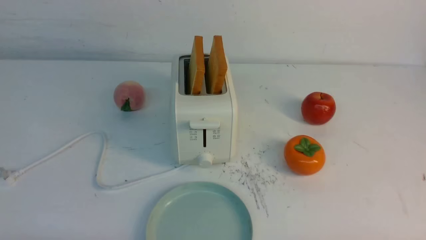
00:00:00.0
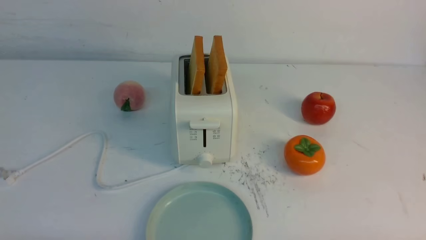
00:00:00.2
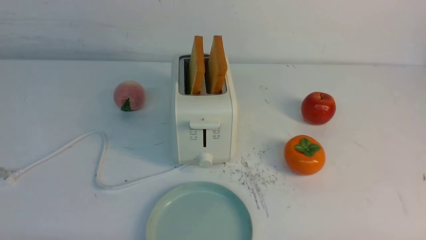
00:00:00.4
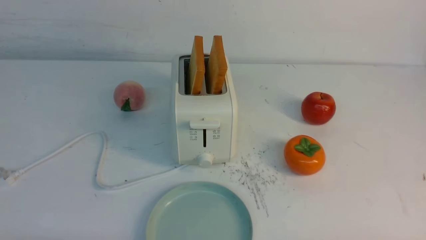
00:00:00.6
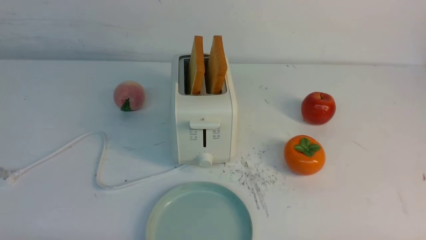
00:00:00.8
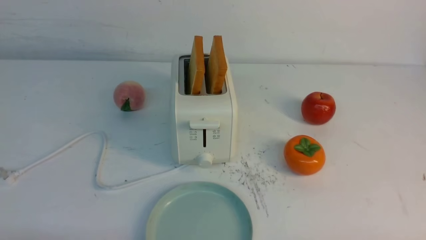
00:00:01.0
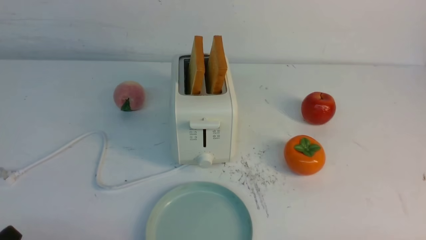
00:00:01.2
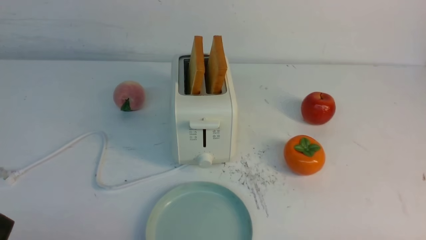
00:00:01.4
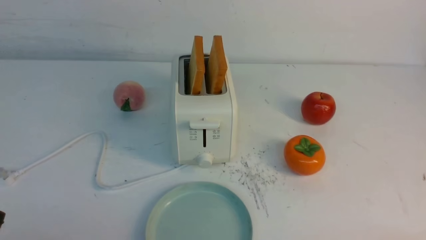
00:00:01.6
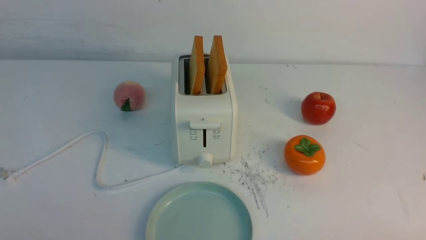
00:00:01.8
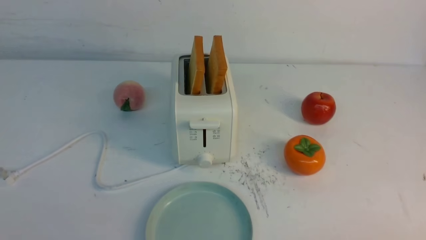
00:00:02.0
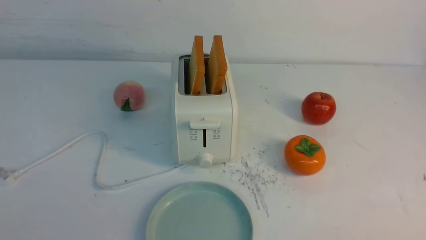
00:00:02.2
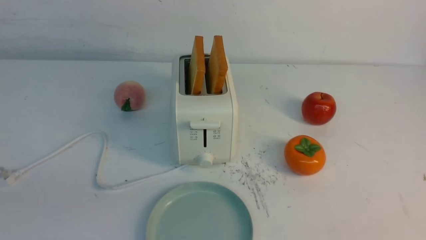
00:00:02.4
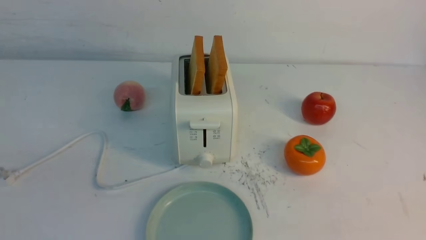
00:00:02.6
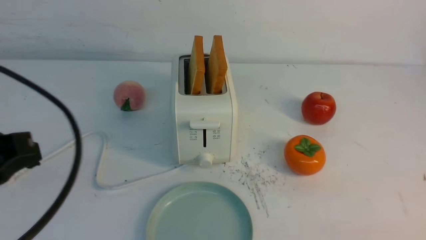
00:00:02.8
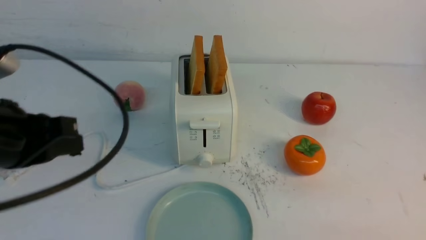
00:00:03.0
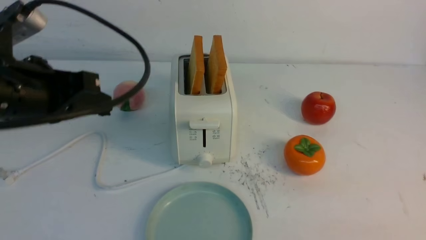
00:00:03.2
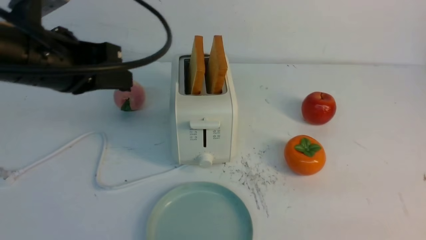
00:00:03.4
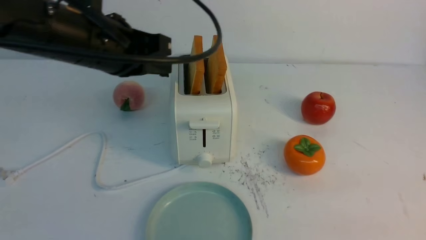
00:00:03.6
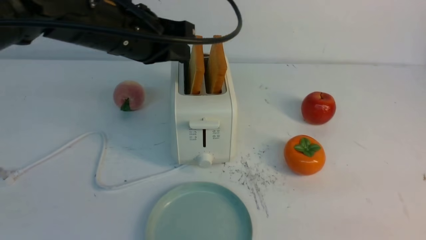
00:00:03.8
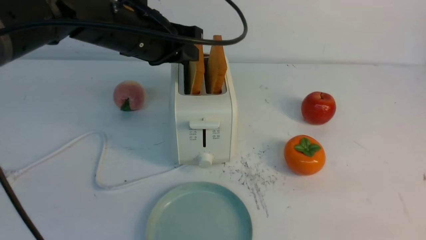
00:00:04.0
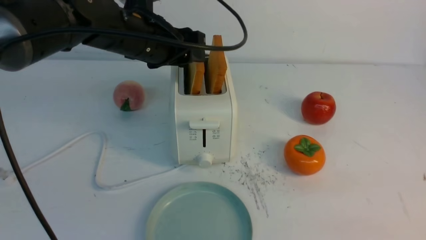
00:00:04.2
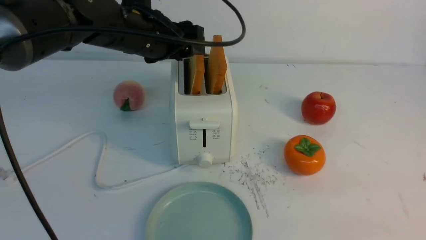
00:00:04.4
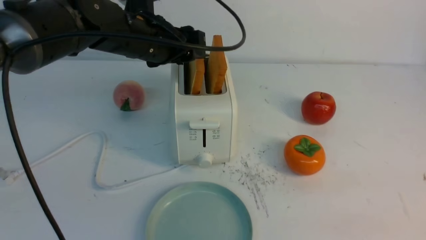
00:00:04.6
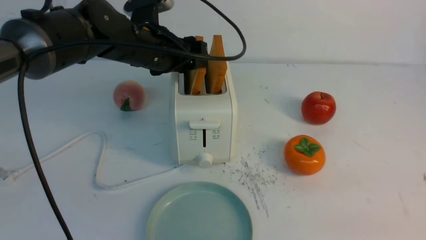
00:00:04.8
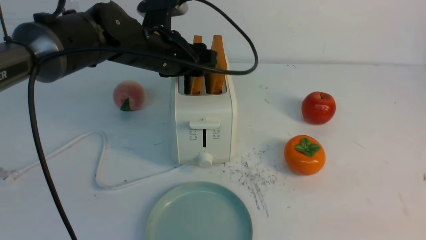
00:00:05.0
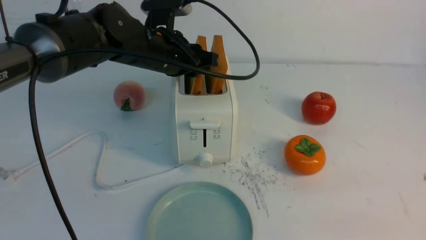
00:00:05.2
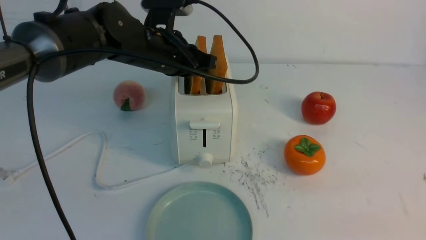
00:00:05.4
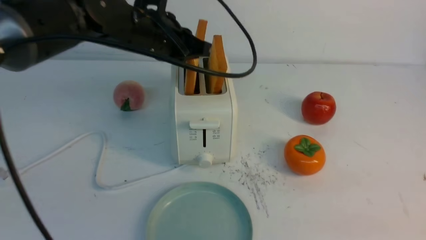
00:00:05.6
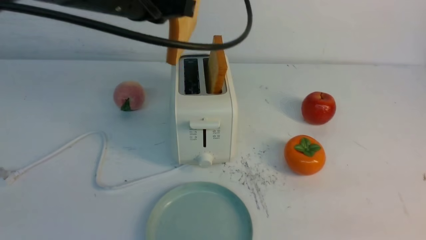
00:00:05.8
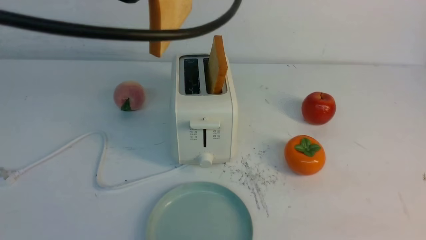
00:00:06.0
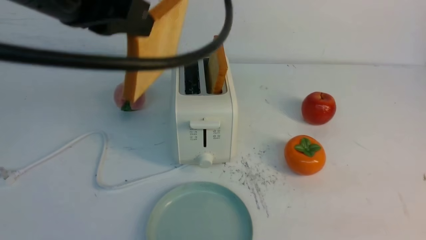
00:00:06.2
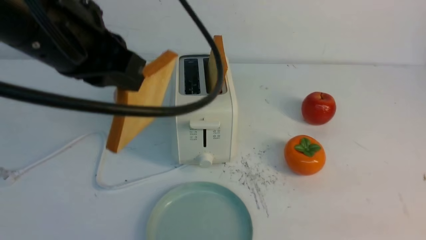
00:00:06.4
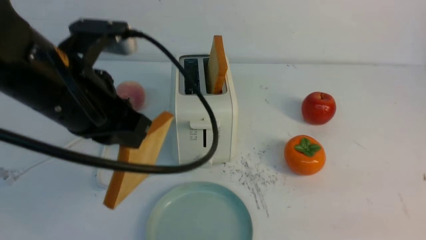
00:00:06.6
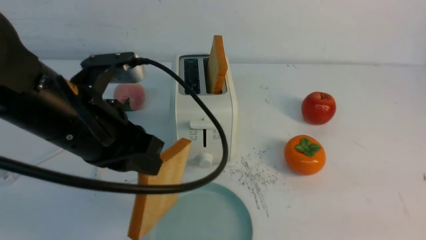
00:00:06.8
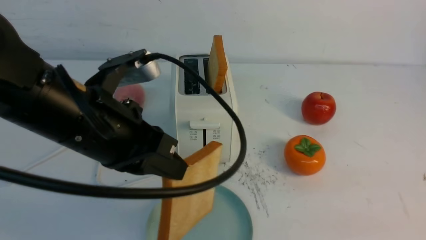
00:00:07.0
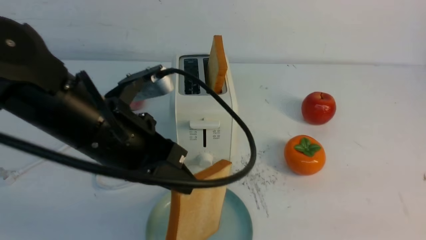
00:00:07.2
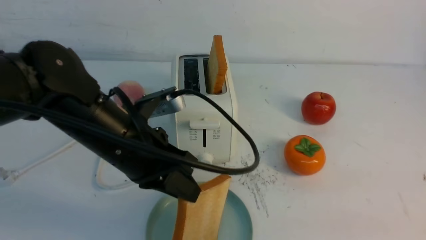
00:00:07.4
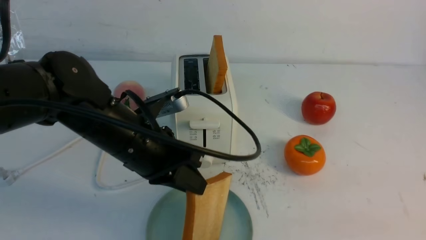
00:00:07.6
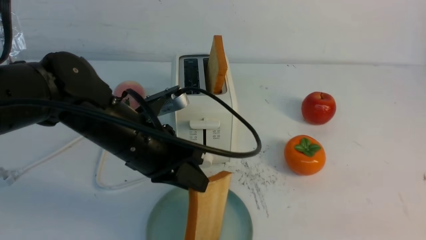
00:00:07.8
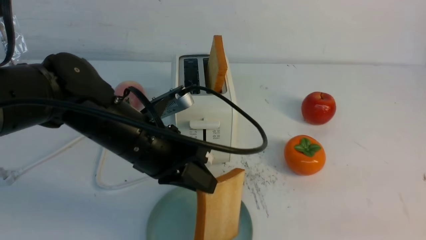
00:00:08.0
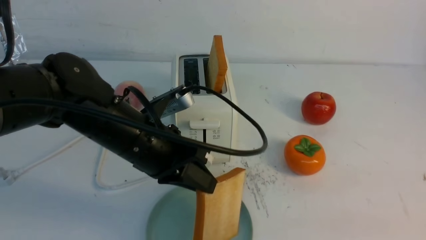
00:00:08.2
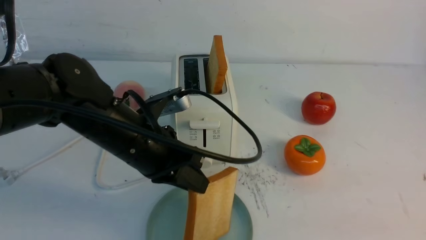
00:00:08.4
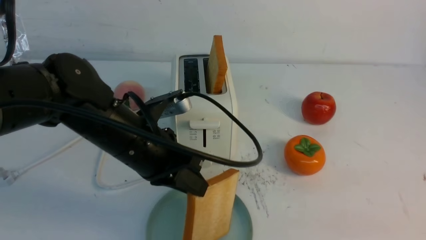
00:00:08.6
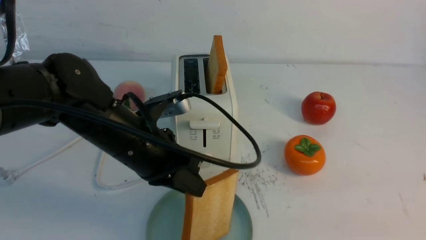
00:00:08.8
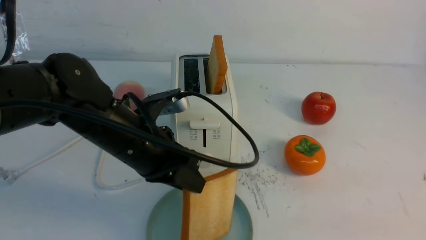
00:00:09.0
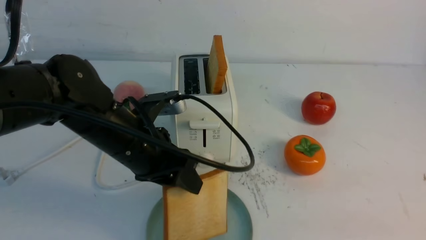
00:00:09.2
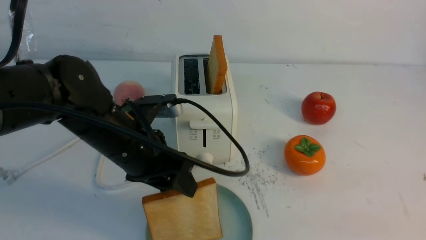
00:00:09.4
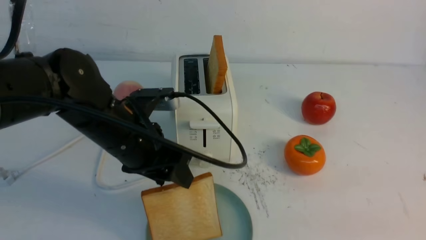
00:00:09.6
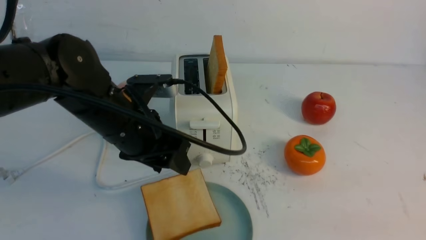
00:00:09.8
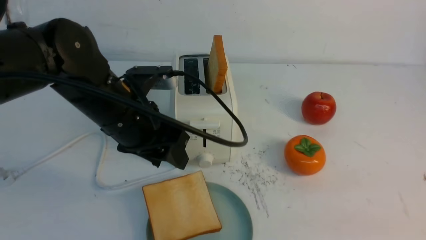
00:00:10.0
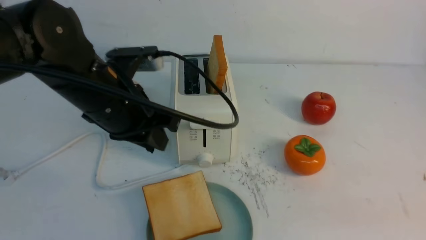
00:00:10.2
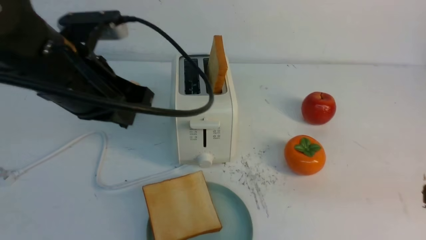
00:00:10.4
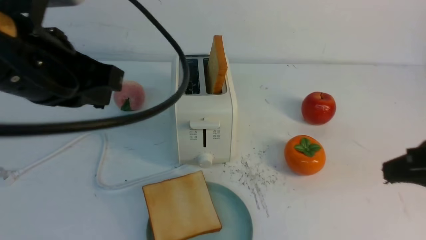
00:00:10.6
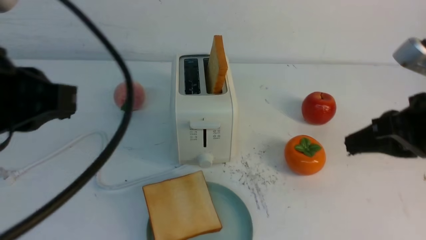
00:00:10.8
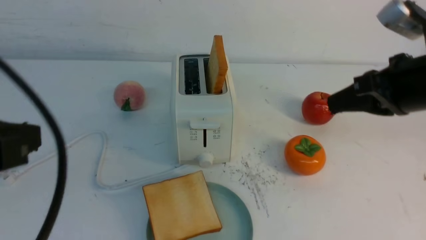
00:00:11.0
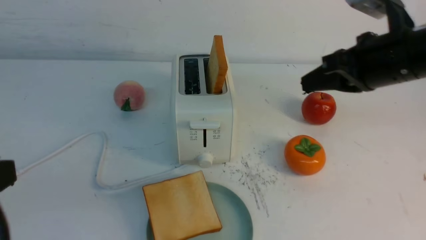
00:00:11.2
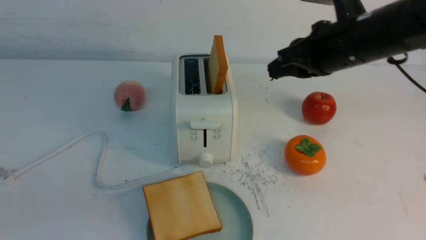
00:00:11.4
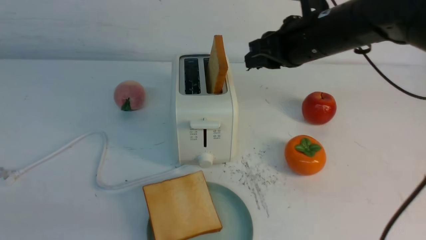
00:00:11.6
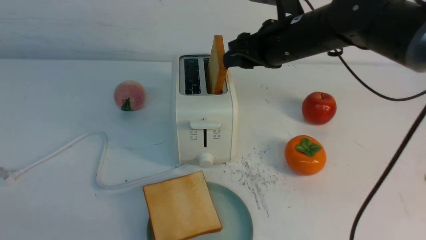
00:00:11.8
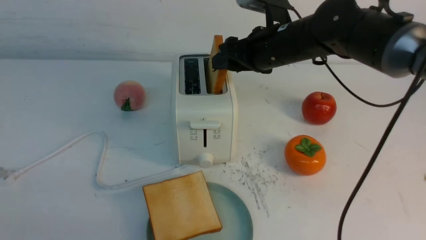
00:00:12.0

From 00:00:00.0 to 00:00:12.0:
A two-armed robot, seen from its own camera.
Task of the whole recording: take toasted bread from bread machine on white table place on plate.
Step, from 00:00:00.0 to 00:00:05.6: use the left arm to take out a slice of bread.
Step, from 00:00:05.8 to 00:00:10.2: use the left arm to put a slice of bread into the empty plate.
From 00:00:01.6 to 00:00:03.0: The left gripper goes approximately 20 cm forward and upward, and closes its fingers.
From 00:00:03.0 to 00:00:04.4: The left gripper goes about 25 cm forward and to the right, and opens up.
From 00:00:04.4 to 00:00:06.0: The left gripper travels backward and upward by roughly 15 cm, and closes up.
From 00:00:06.0 to 00:00:07.6: The left gripper moves downward, approximately 20 cm.
From 00:00:07.6 to 00:00:09.0: The left gripper opens up.
From 00:00:09.0 to 00:00:10.4: The left gripper goes some 10 cm upward, and closes. The right gripper shifts by approximately 5 cm.
From 00:00:10.4 to 00:00:12.0: The left gripper shifts approximately 25 cm backward and to the left. Meanwhile the right gripper is displaced forward and to the left by about 35 cm, and opens up.

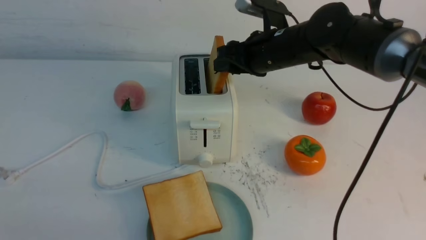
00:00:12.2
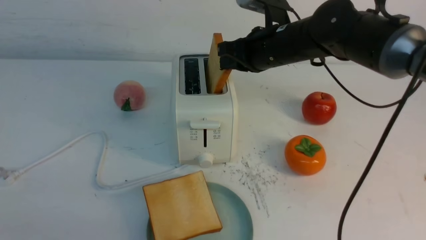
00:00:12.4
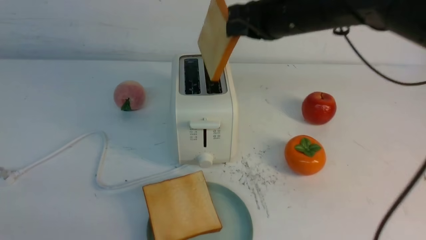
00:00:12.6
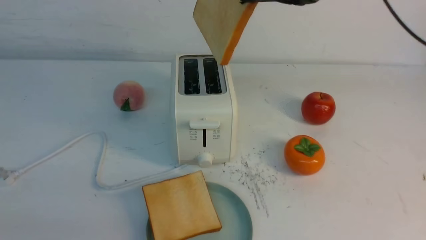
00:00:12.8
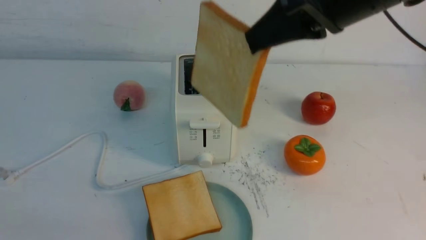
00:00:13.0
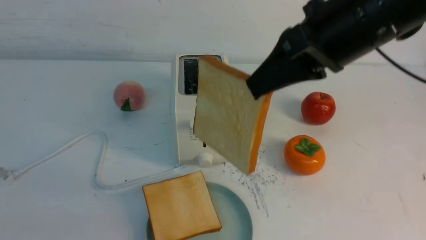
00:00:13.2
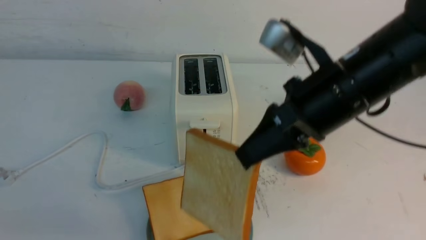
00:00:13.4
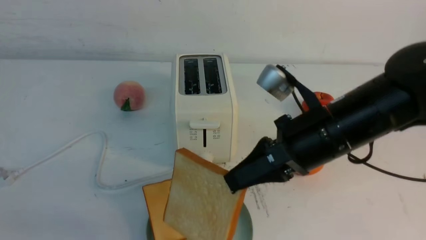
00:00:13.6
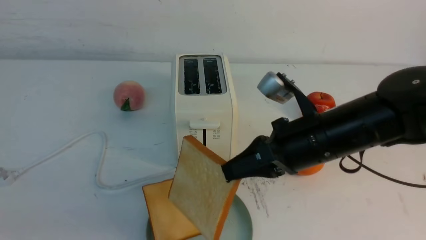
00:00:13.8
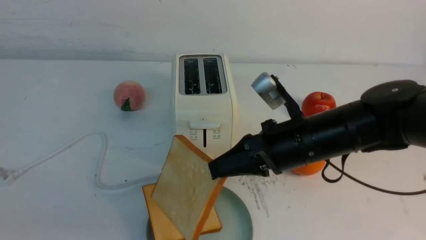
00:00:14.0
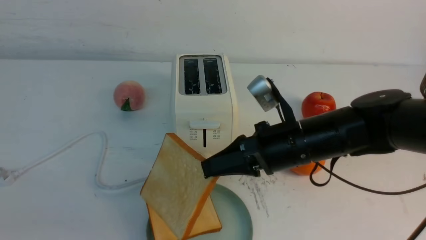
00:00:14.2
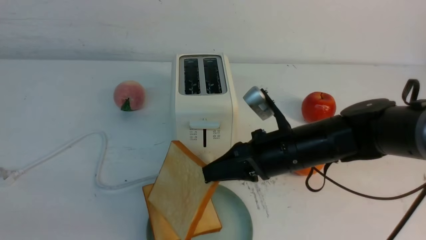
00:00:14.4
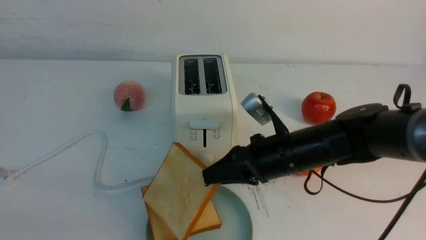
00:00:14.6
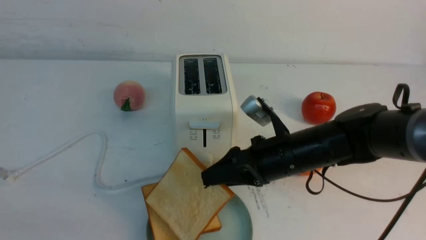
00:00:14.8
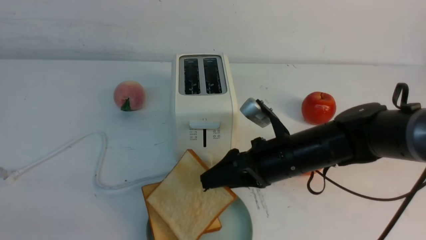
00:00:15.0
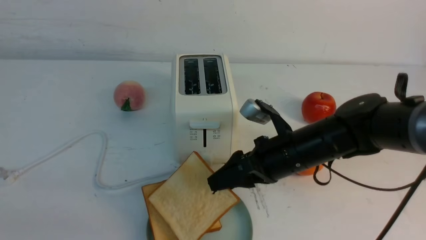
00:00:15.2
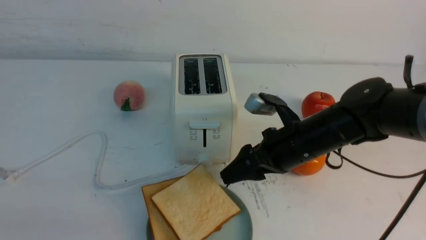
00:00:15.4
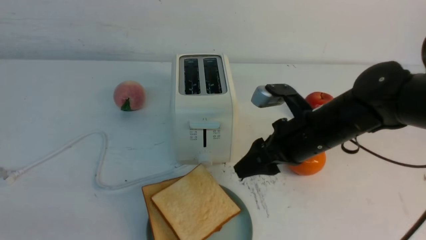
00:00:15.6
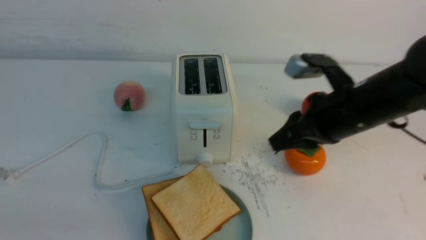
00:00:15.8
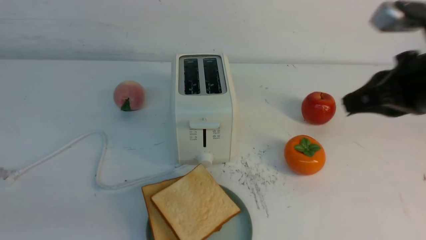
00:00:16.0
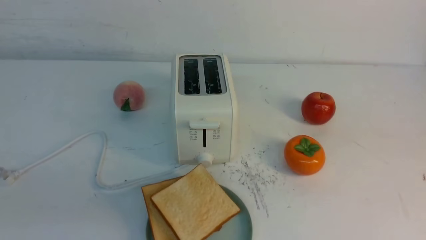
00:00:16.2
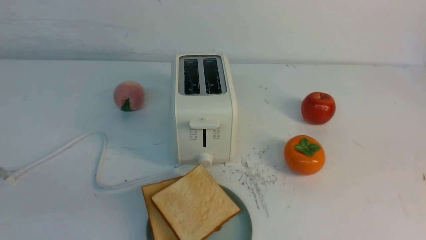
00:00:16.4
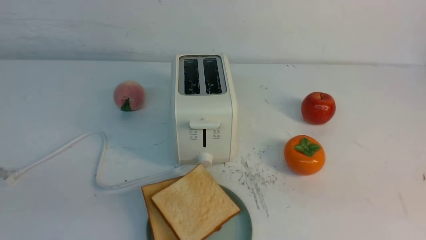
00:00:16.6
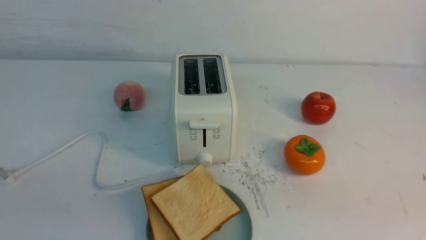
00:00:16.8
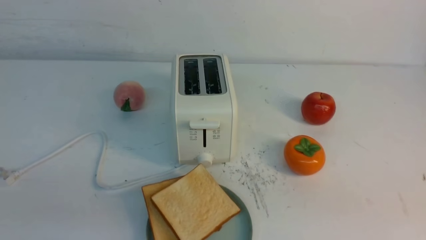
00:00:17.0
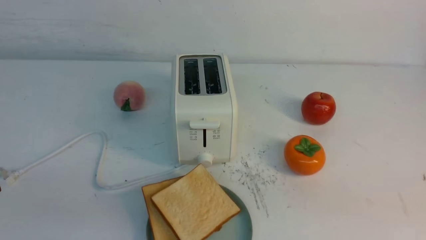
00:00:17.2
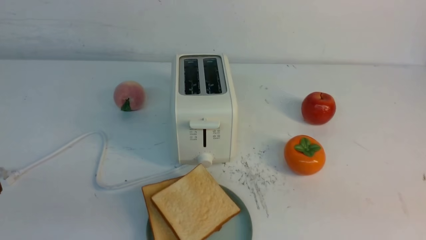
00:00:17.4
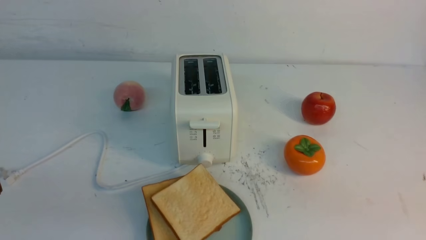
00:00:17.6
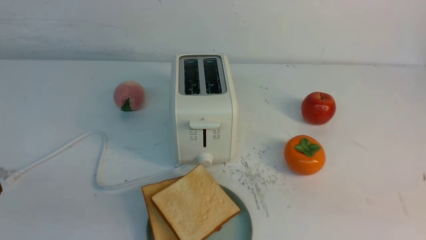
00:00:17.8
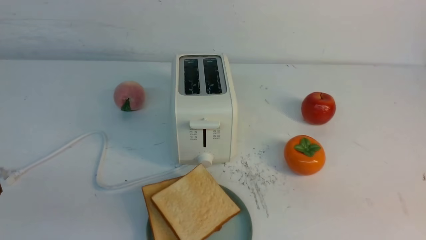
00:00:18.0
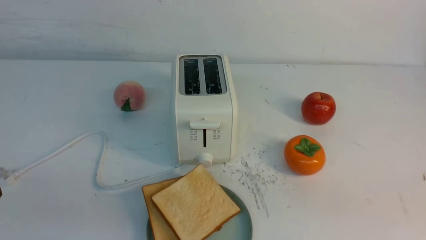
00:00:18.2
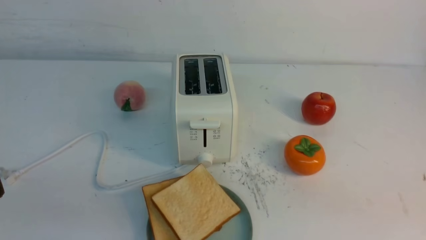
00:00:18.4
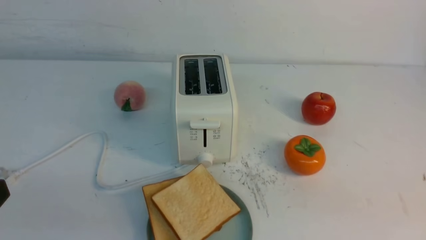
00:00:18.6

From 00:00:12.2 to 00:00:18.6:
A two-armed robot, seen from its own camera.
Task of the whole recording: take toasted bread from bread machine on white table place on plate.
Step, from 00:00:12.8 to 00:00:16.2: use the right arm to put a slice of bread into the plate.
From 00:00:12.2 to 00:00:13.8: The right gripper moves backward, about 15 cm, moves roughly 15 cm upward and comes back, and closes up.
From 00:00:13.8 to 00:00:15.4: The right gripper changes place by roughly 5 cm, and opens up.
From 00:00:15.4 to 00:00:17.0: The right gripper shifts roughly 30 cm backward and to the right, and closes up.
